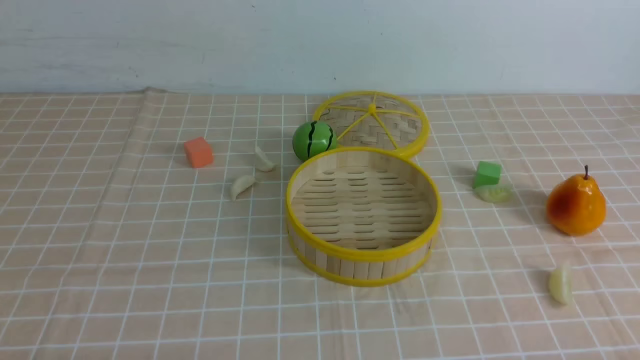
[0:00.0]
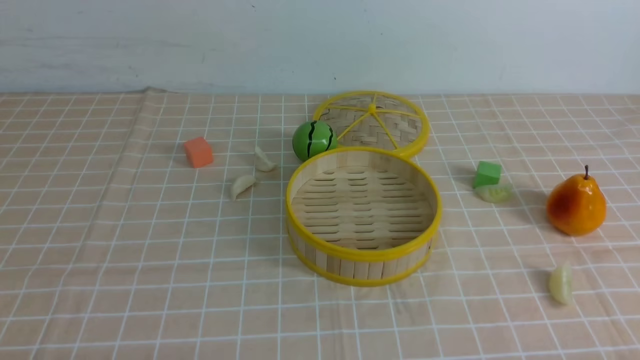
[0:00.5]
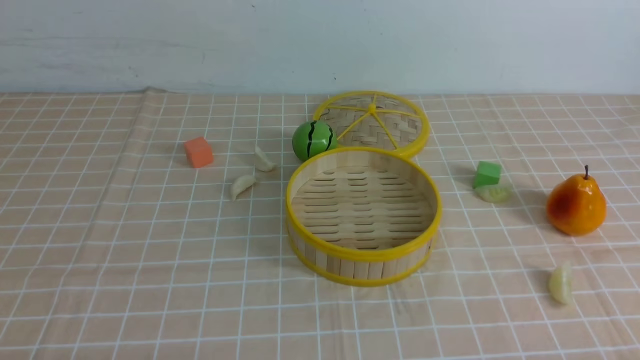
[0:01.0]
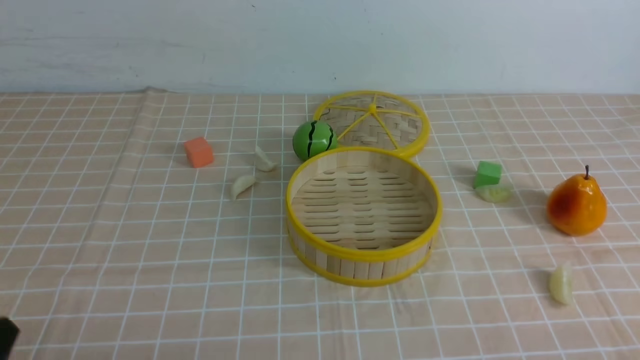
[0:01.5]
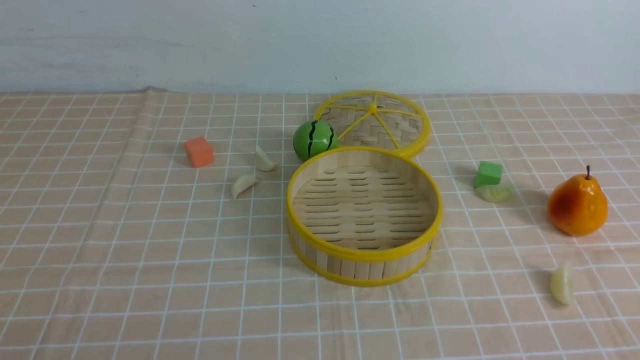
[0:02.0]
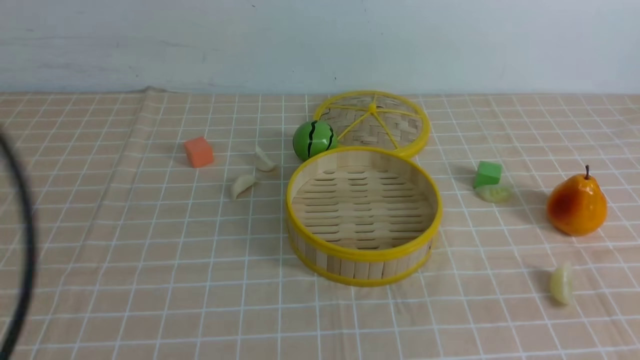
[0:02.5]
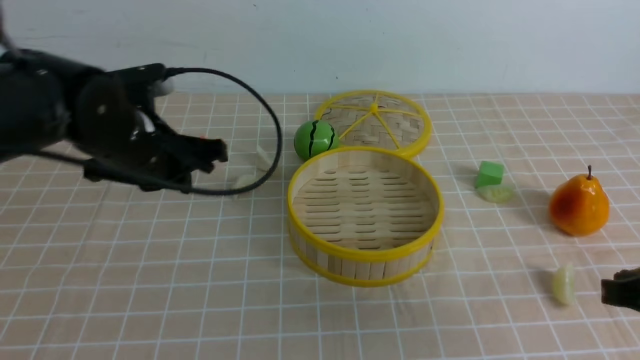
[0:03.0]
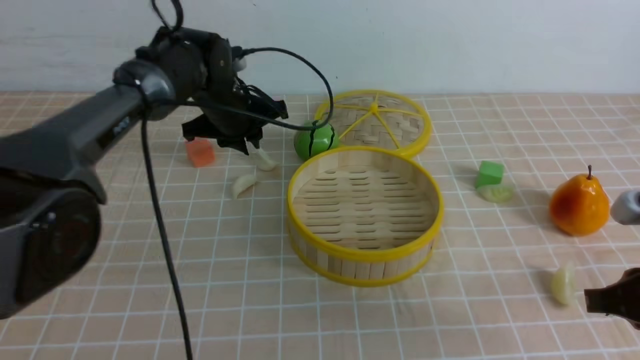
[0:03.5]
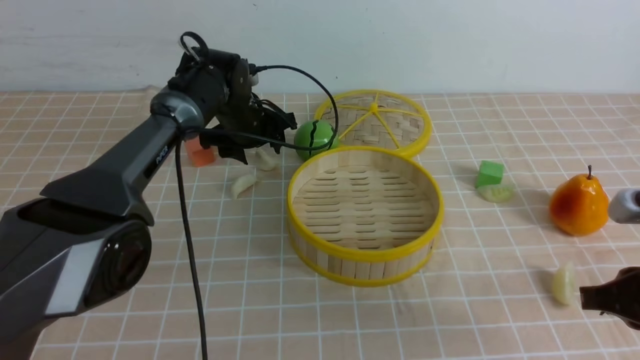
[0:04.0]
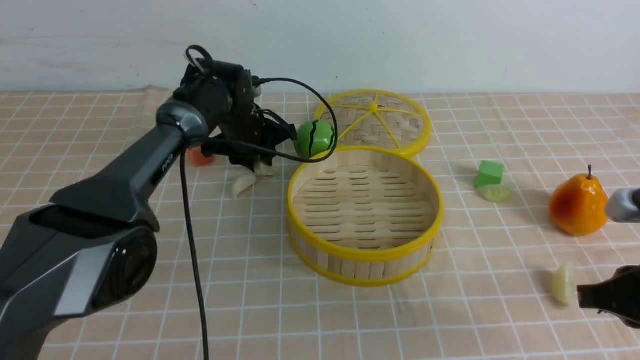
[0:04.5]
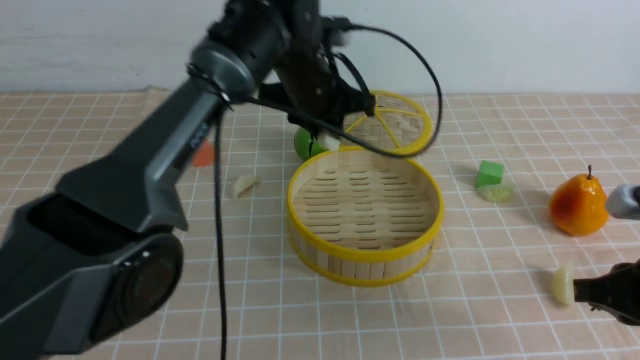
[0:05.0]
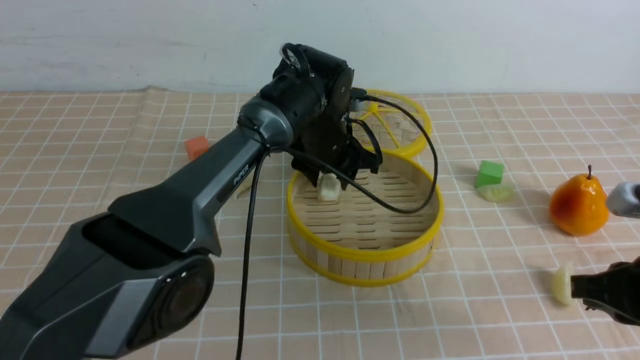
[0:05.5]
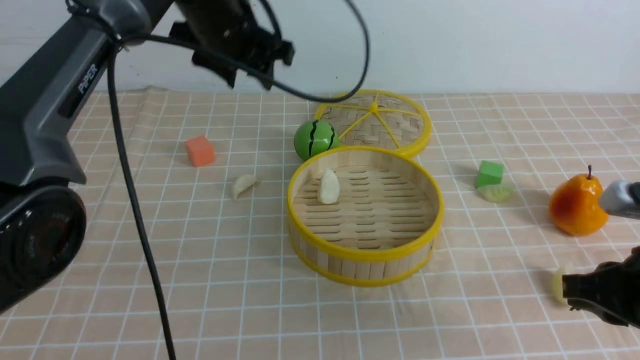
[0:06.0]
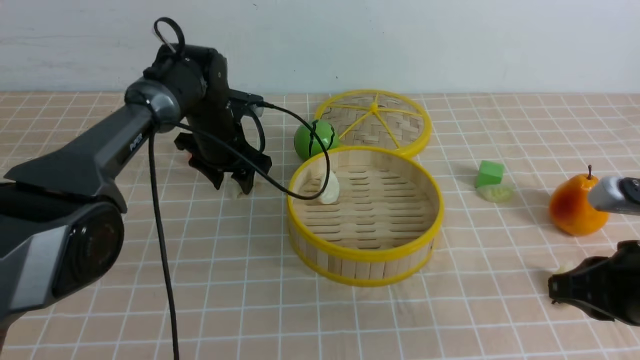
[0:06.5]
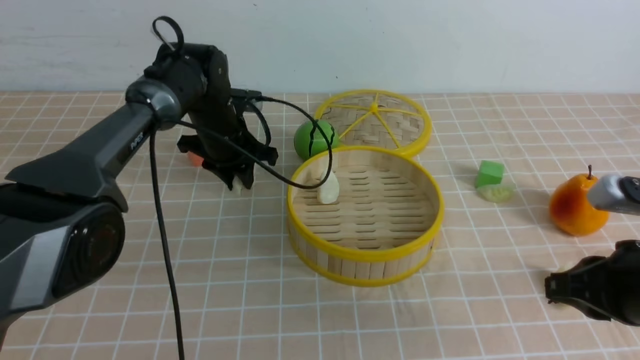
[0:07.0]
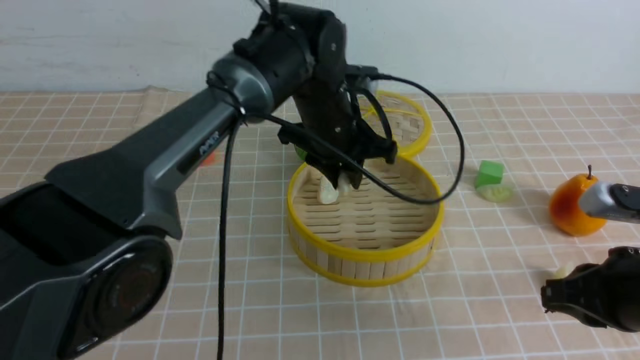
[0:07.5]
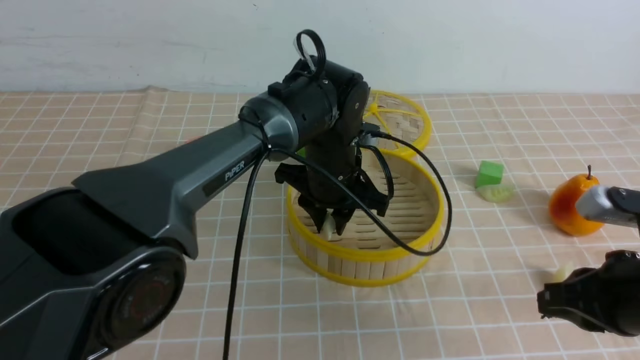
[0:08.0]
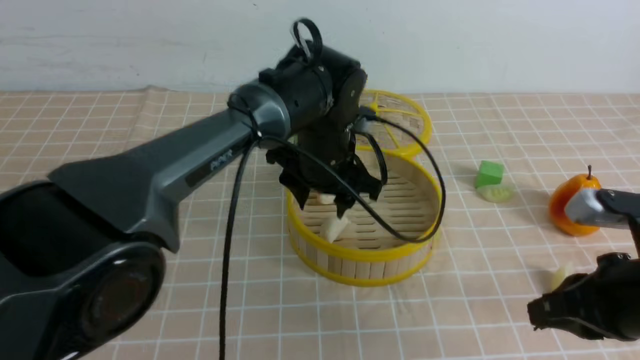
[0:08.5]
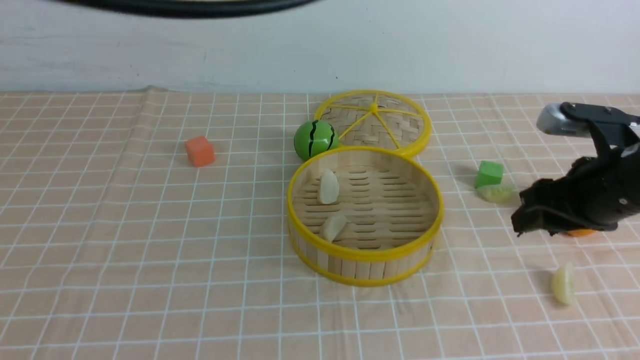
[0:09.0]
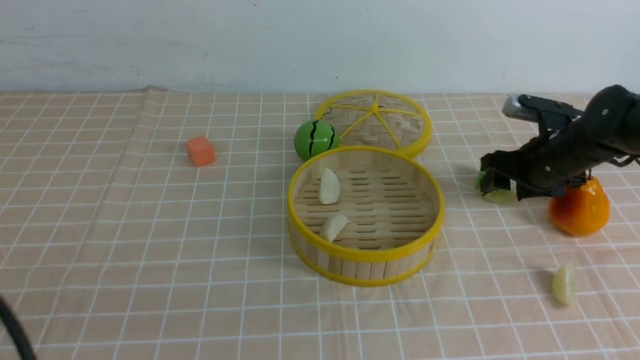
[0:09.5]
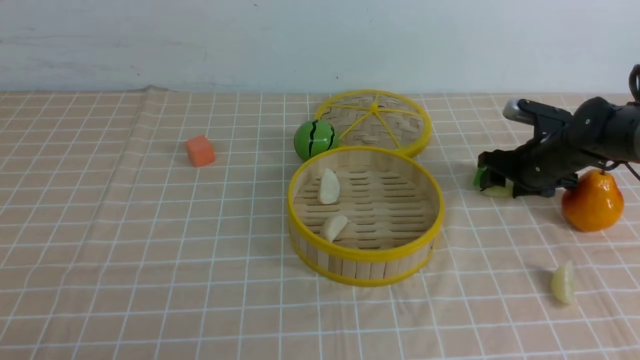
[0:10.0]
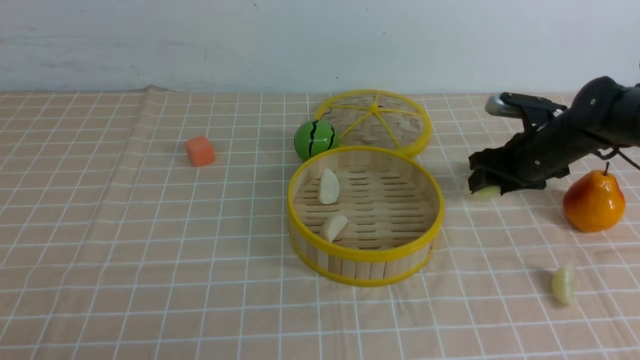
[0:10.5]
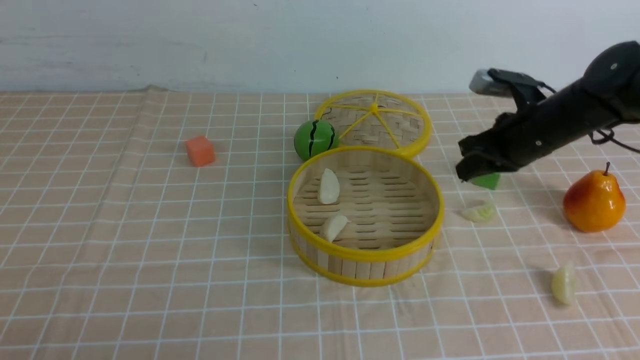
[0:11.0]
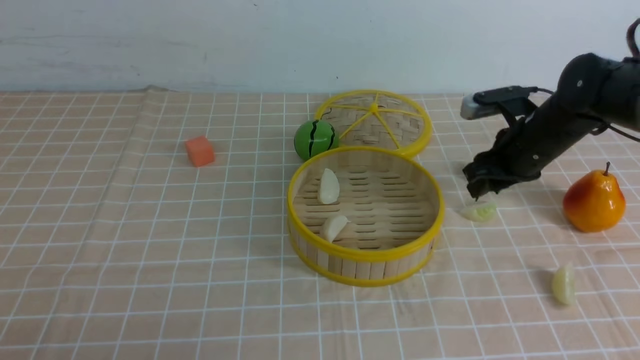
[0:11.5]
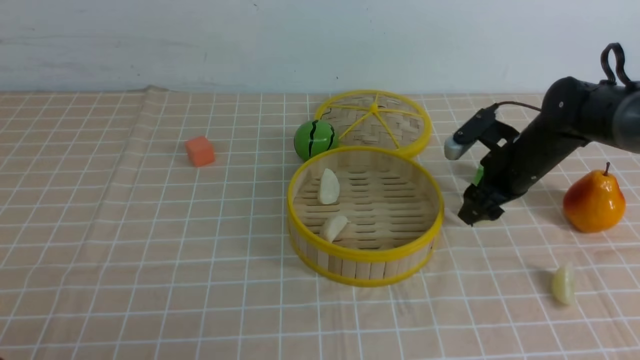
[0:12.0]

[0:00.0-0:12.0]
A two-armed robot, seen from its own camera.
Task of the whole recording: put the dumplings into the steamer on the table with the brown tablecloth.
Step, 0.0 to 4.0 s: use the left arm to grab a dumpling.
Step, 4.5 to 5.5 s: use the left arm to put the dumpling into the steamer.
Step, 6.0 to 6.5 s: use the left arm to grab a dumpling.
Step, 7.0 to 8.5 s: use the left arm to put the dumpling into the steamer.
2.0 to 4.0 s: The left gripper goes some 50 cm forward, and opens. Meanwhile the right gripper goes roughly 15 cm forward.
4.0 to 6.0 s: The left gripper travels upward and backward by about 15 cm, and closes and opens again.
6.0 to 8.0 s: The left gripper moves to the right, downward and backward, approximately 15 cm, and closes.
8.0 to 10.0 s: The left gripper goes some 40 cm backward and to the left, and opens and closes again, while the right gripper goes approximately 25 cm forward, and opens up.
10.0 to 12.0 s: The right gripper goes upward and returns, roughly 10 cm each way, and closes, then opens again.

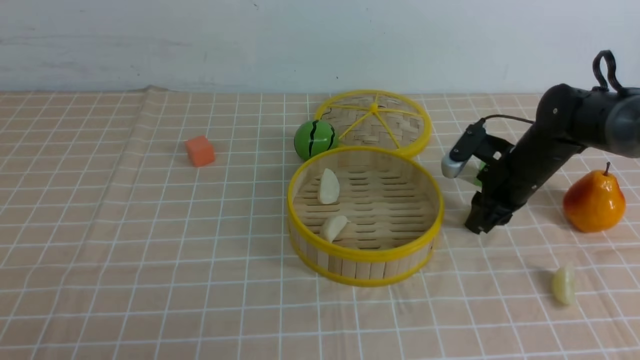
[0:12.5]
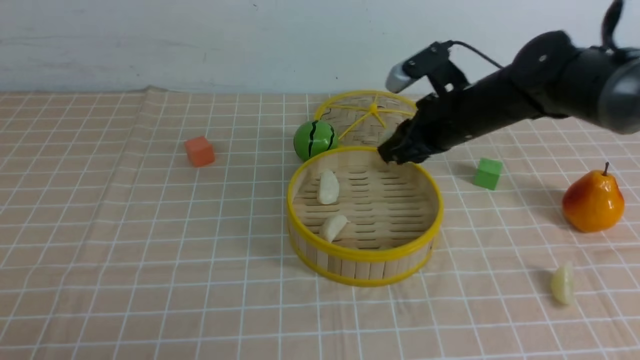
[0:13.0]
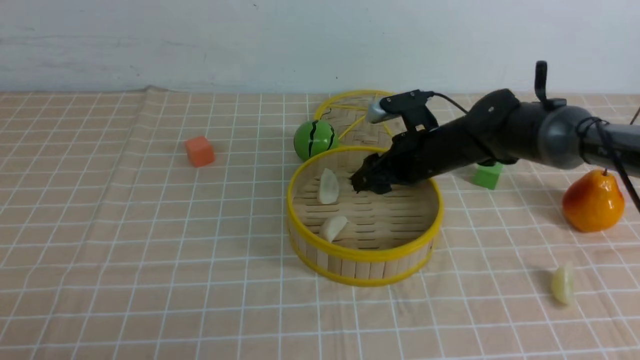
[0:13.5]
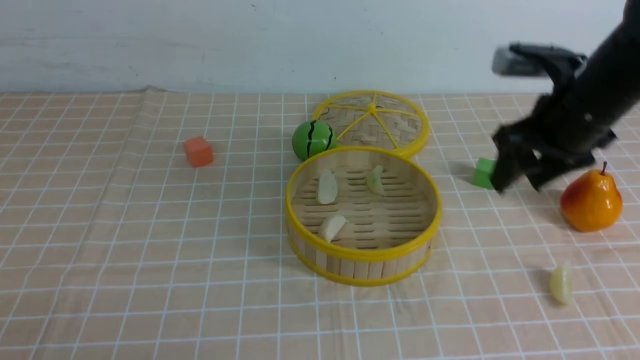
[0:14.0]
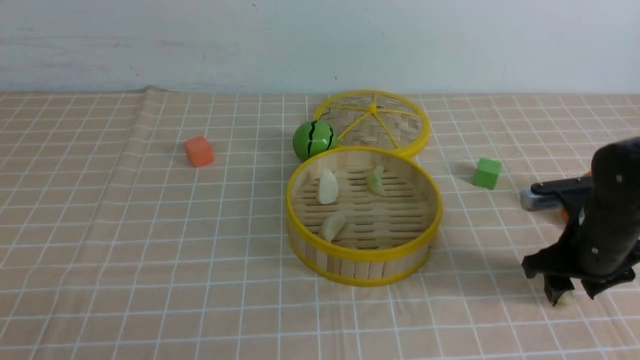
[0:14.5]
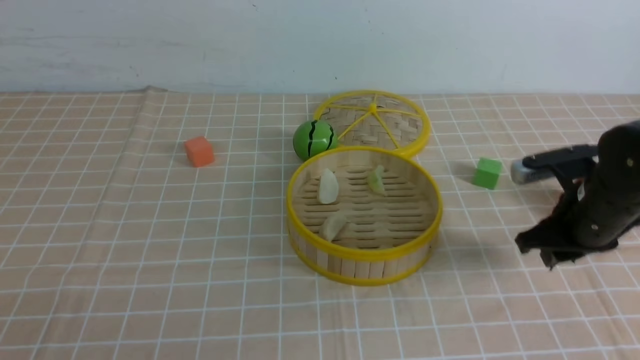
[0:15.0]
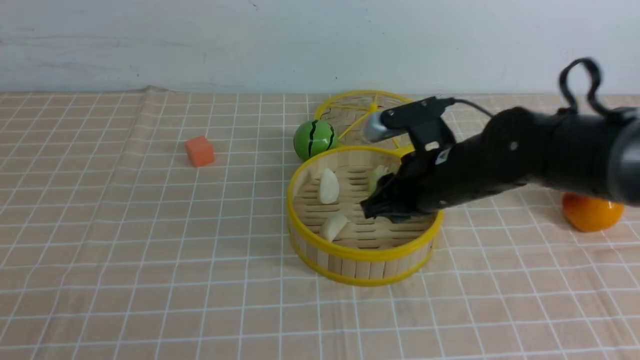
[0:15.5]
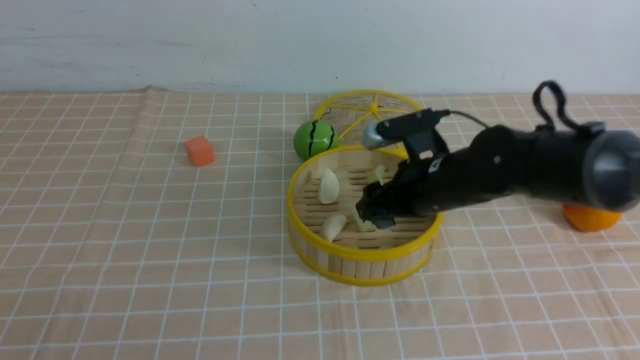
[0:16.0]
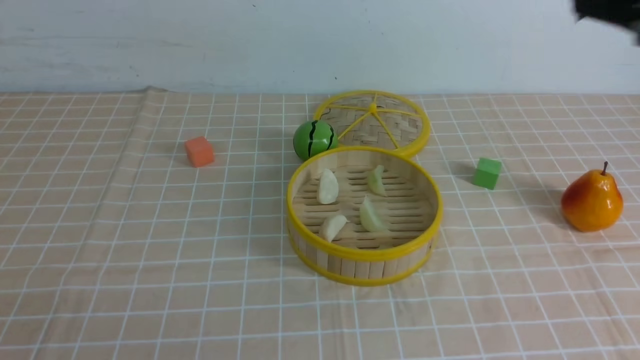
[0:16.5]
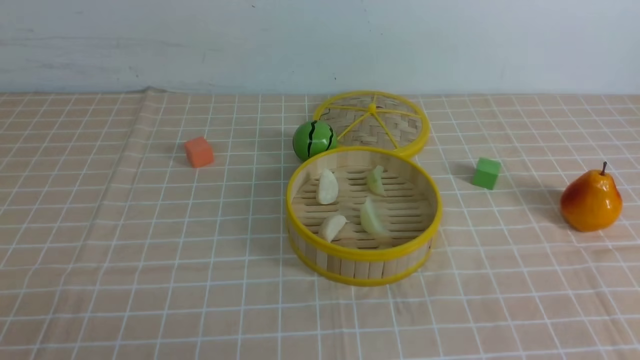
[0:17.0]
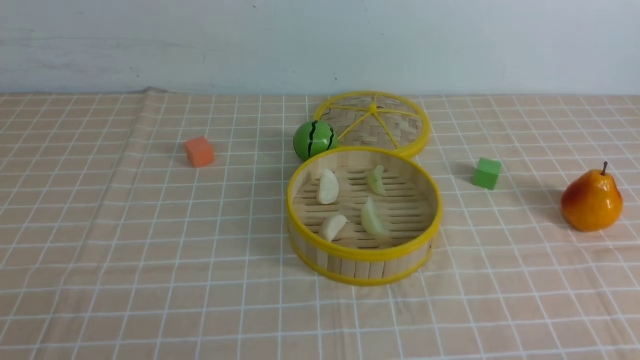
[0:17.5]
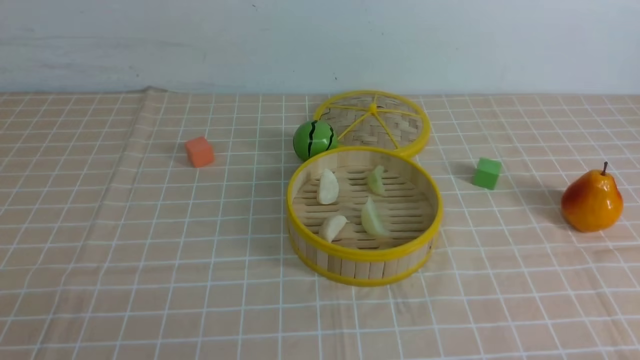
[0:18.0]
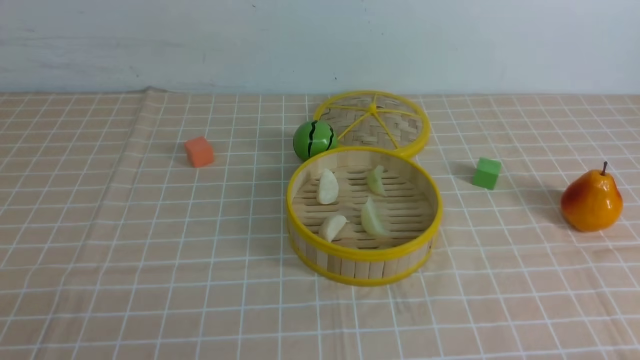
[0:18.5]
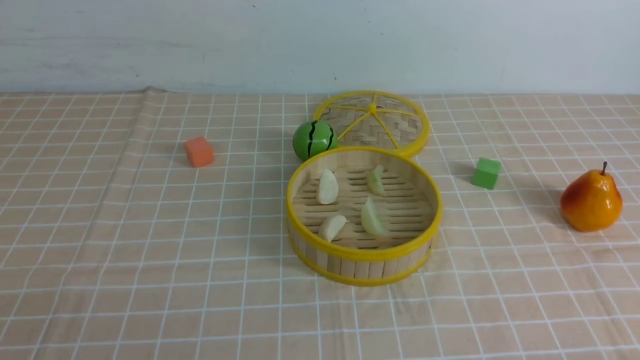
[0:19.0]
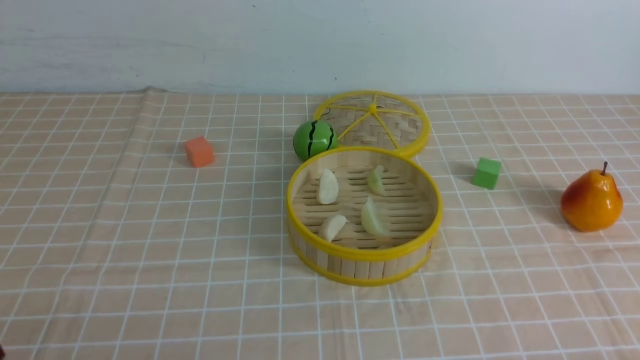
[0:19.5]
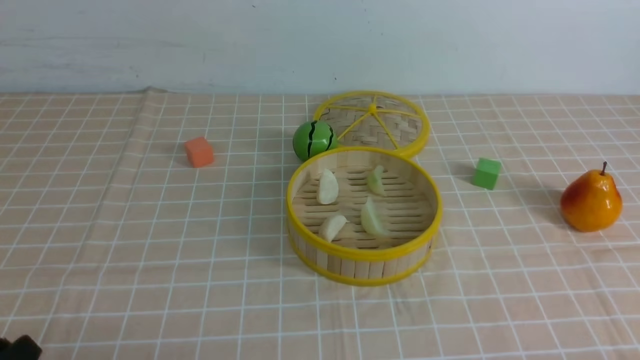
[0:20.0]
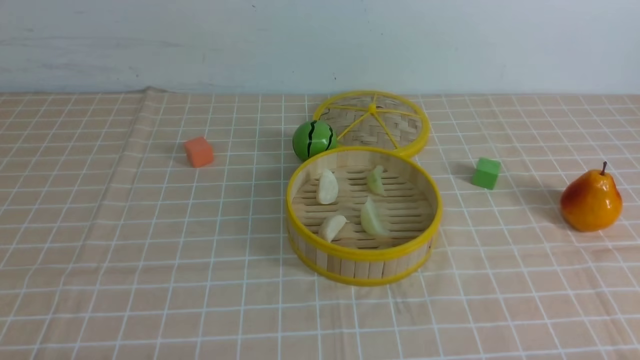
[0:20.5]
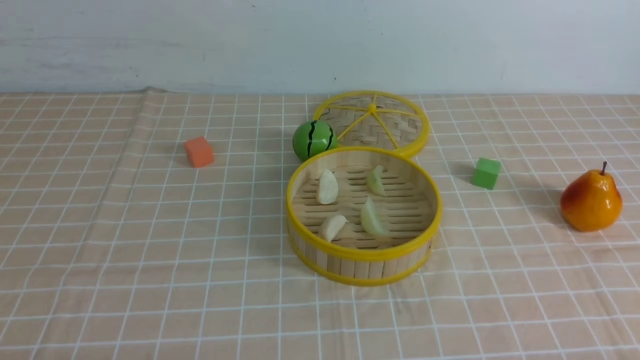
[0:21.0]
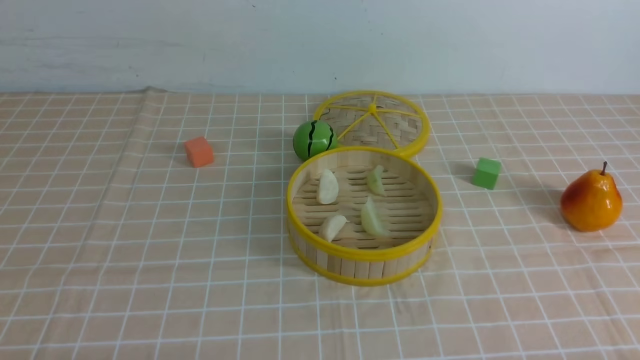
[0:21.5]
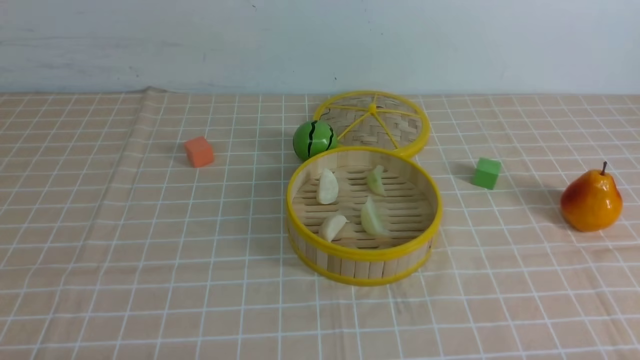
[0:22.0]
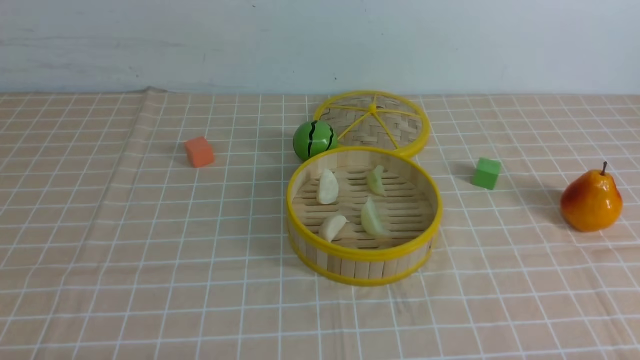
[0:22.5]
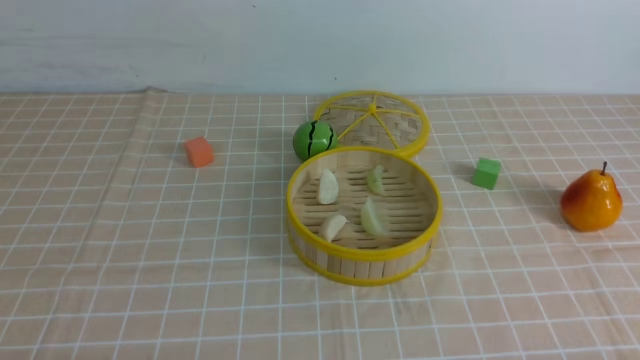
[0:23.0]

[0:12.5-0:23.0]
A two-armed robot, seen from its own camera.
Task of the whole recording: put the dumplings into the steamer on the table with the brown tablecloth.
Step, 12.5 to 13.5 s: use the right arm to put the dumpling into the steamer.
Step, 14.0 to 14.5 s: use the right arm to grab a dumpling.
Step, 15.0 to 16.0 s: use the right arm to put the dumpling into the steamer.
12.5 to 14.5 s: The right gripper travels backward by about 10 cm, and goes to the left and returns, some 10 cm each way.
14.5 to 16.5 s: The right gripper travels upward and backward by about 30 cm.
16.5 to 19.0 s: The right gripper goes some 30 cm downward and backward, and closes its fingers.
21.0 to 23.0 s: Both grippers stay about where they are.
